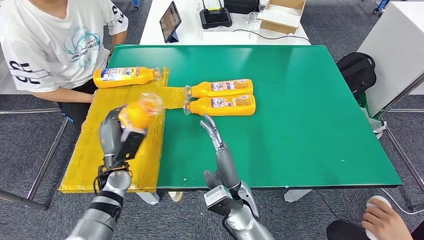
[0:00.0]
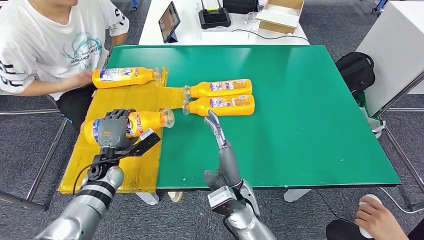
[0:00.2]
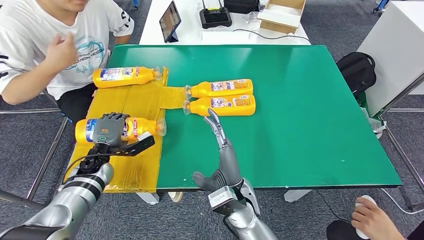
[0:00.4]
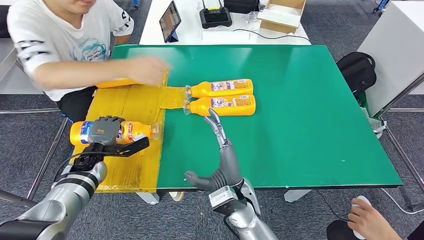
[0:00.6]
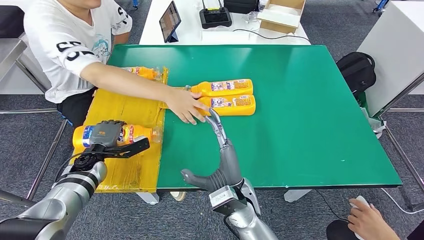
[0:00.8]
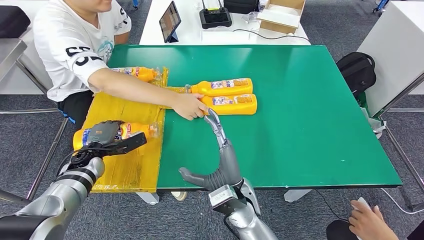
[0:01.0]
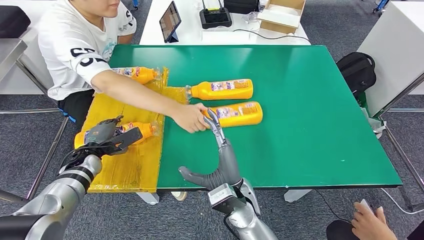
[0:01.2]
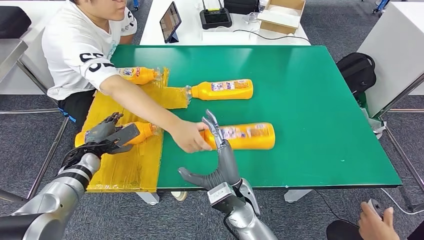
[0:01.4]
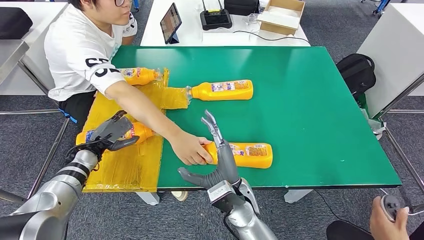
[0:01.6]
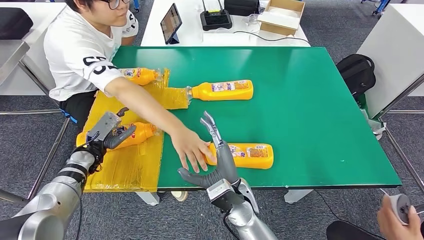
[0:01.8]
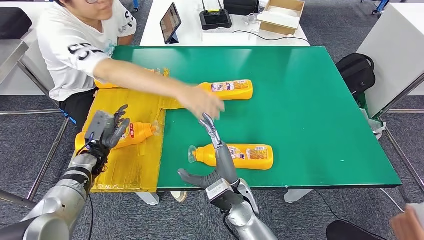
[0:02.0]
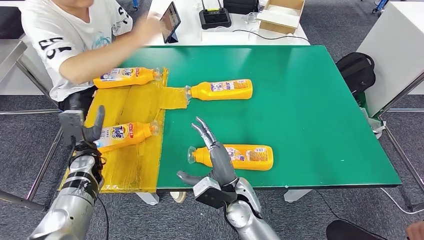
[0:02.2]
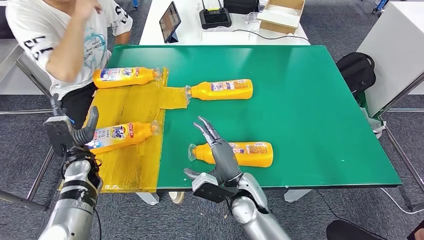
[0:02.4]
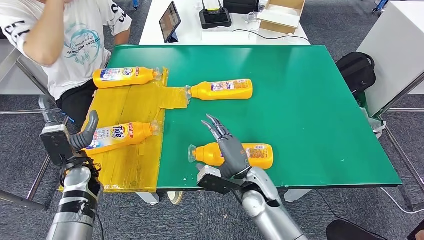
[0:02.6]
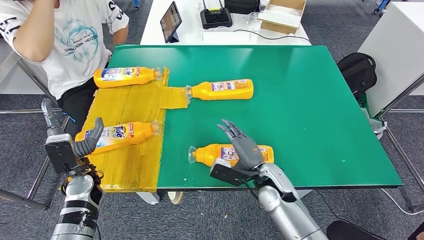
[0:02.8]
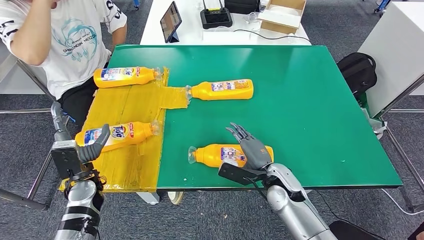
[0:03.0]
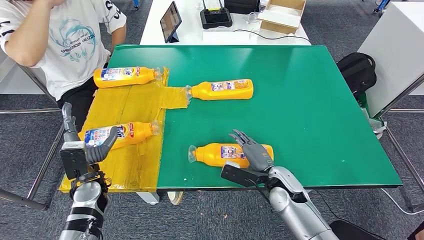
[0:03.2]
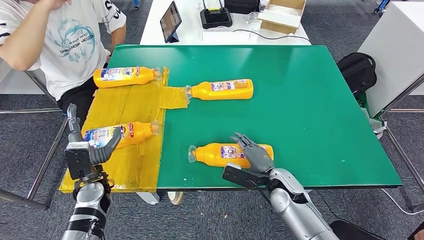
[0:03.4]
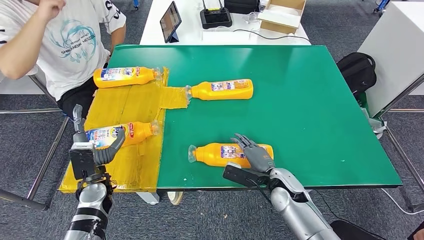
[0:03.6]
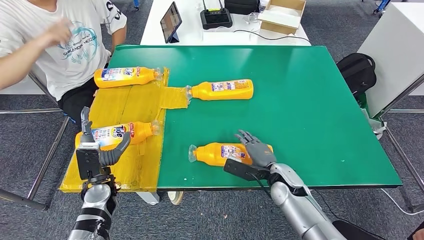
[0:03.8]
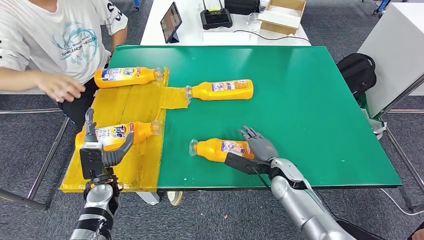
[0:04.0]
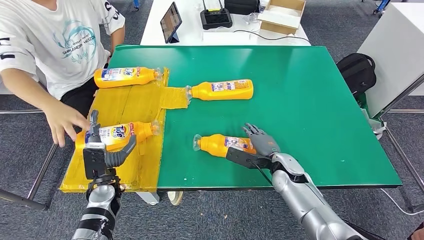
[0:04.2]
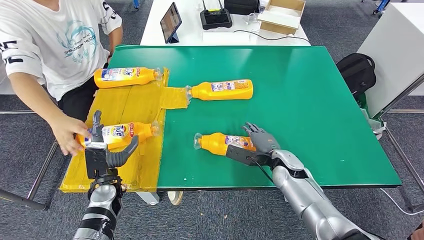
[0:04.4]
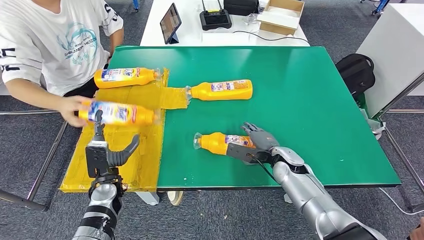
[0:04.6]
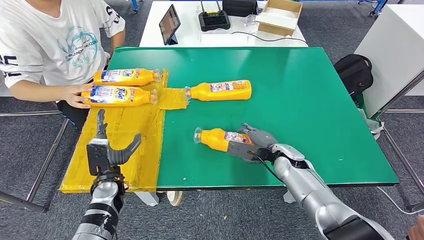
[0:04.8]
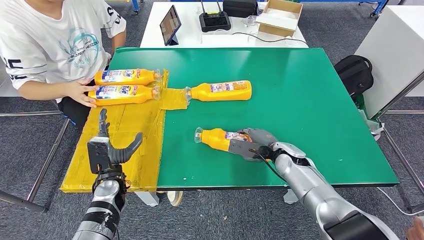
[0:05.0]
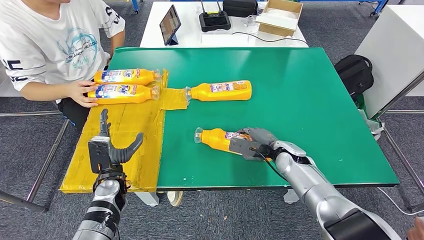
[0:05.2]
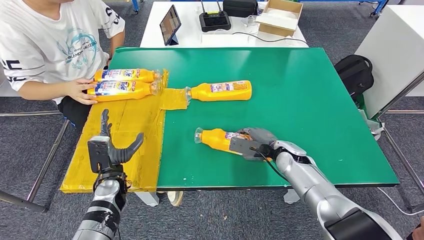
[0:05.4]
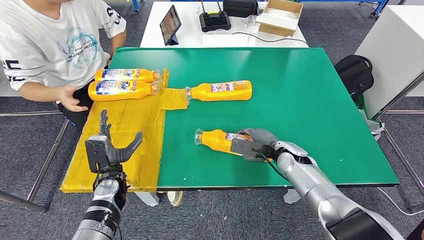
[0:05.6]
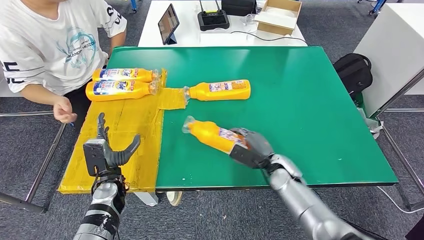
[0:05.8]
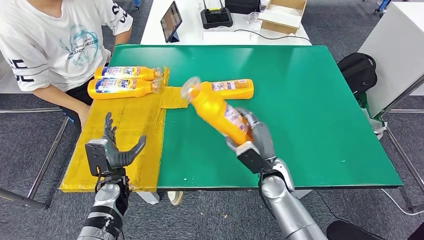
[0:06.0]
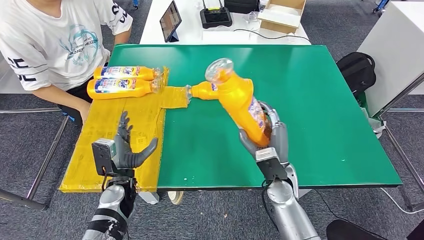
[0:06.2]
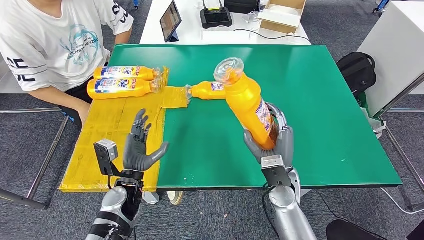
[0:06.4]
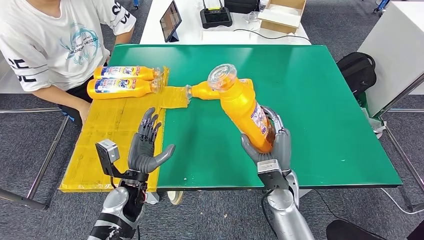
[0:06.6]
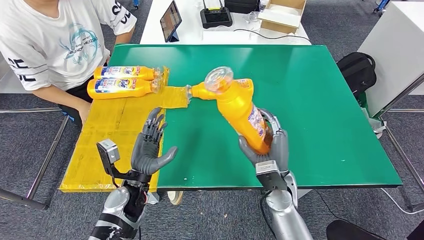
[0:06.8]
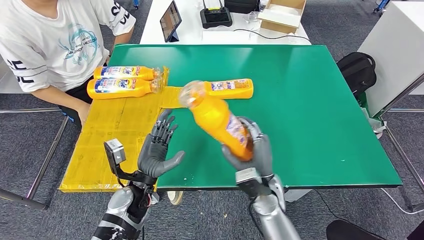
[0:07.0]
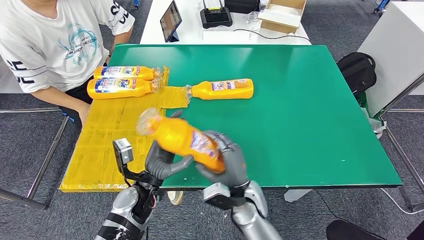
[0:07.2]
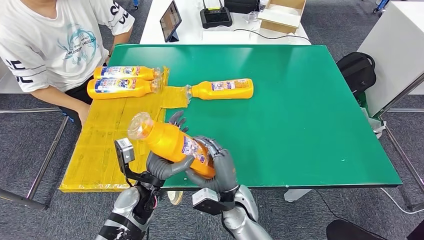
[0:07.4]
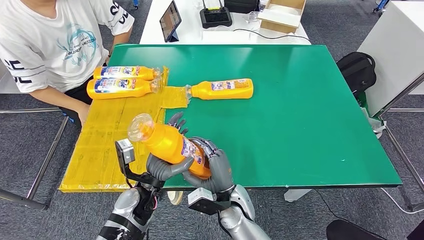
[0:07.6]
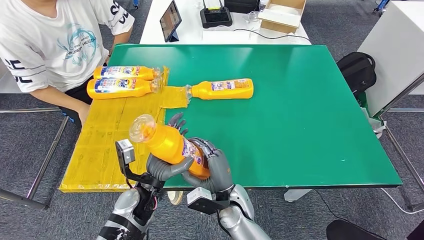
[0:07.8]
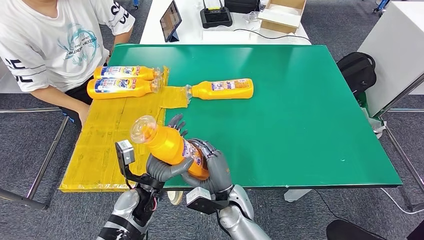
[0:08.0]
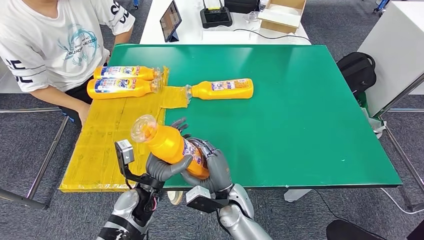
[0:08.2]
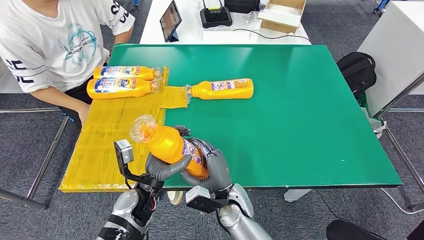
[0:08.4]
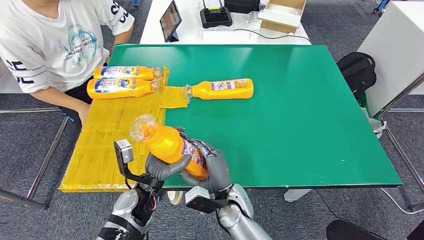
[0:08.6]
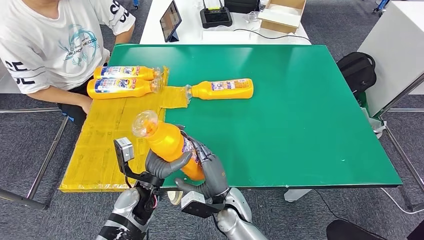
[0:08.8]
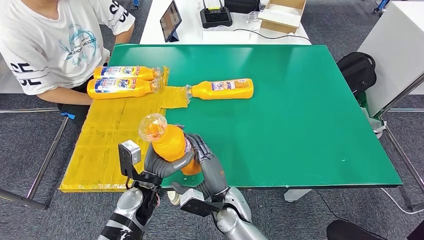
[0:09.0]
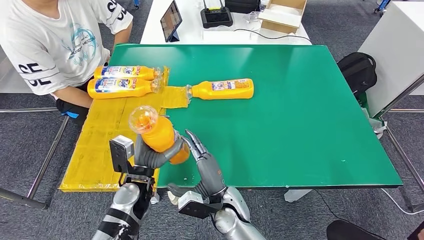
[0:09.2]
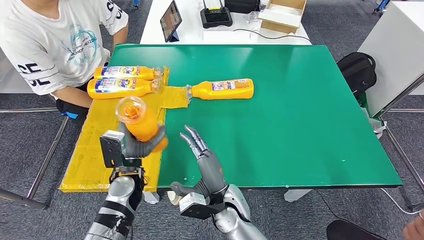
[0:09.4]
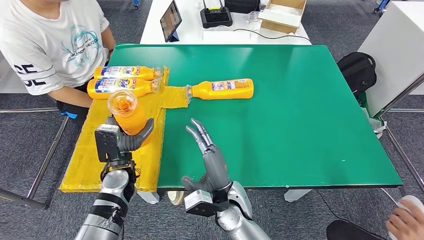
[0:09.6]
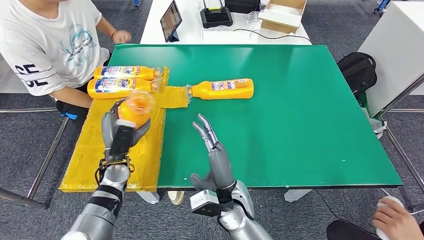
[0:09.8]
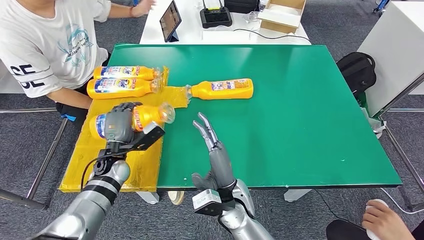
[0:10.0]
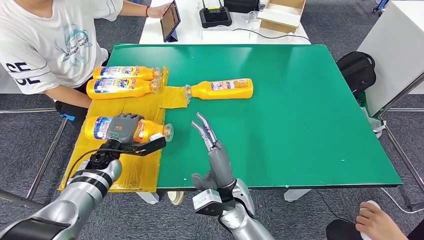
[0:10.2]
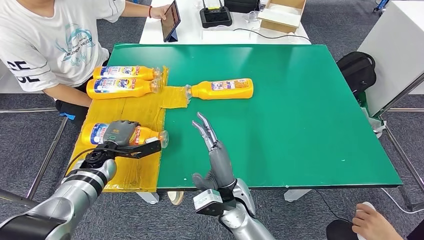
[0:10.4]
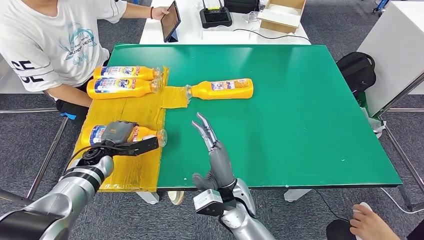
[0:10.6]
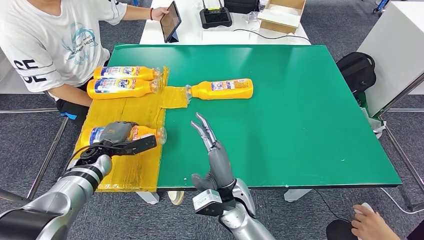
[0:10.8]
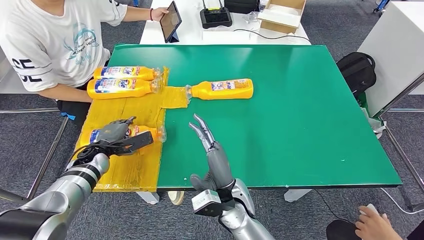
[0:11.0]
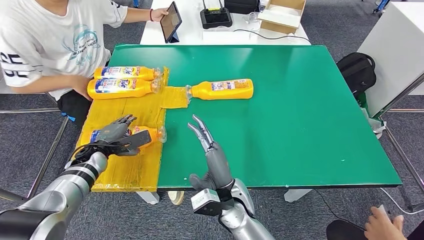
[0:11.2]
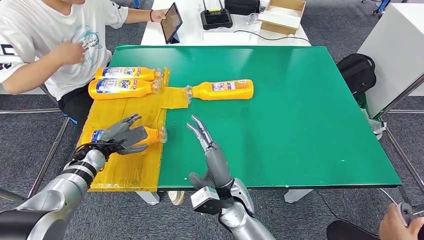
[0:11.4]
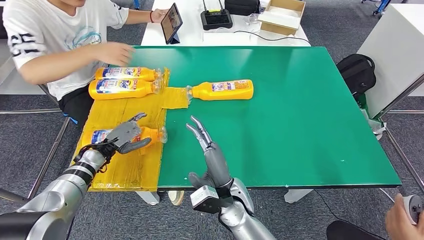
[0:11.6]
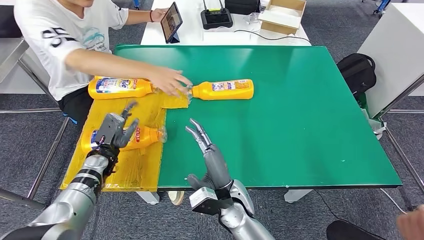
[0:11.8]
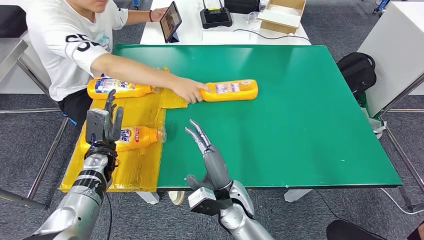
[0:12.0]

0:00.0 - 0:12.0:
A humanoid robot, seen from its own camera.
Step, 0:00.0 - 0:02.6: Flip the fast-moving consumer goods bottle to the front side.
Step, 0:02.8 - 0:07.0: Pick up the fast-moving consumer goods bottle from the table.
0:07.6 - 0:09.0: The hands make only small movements.

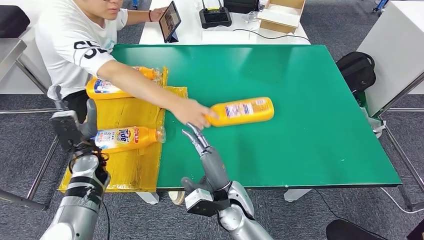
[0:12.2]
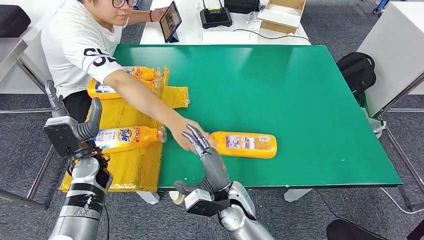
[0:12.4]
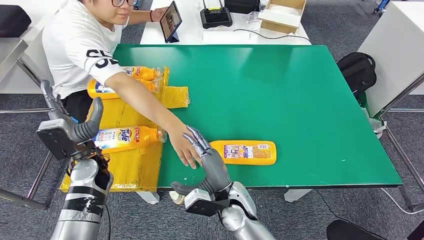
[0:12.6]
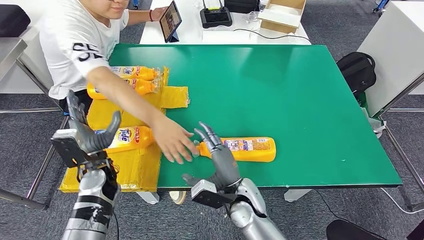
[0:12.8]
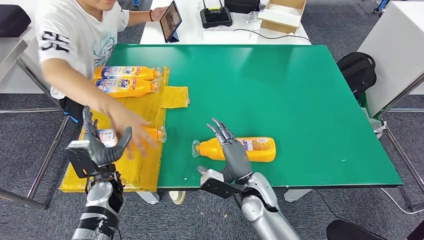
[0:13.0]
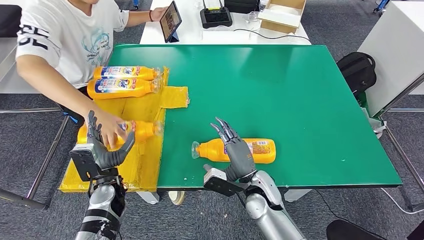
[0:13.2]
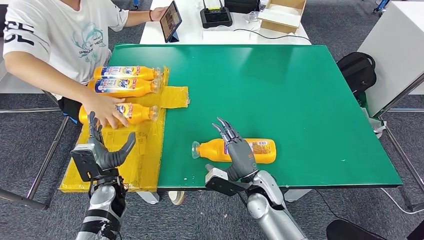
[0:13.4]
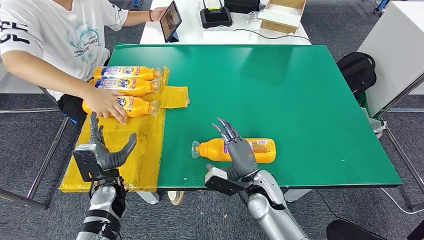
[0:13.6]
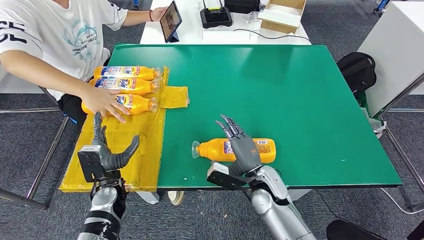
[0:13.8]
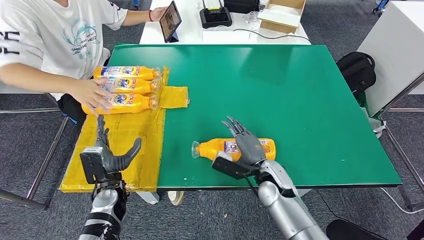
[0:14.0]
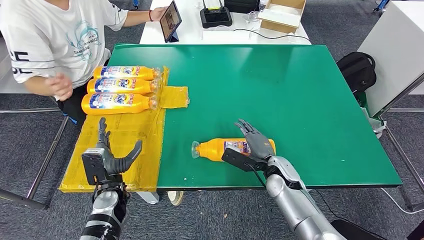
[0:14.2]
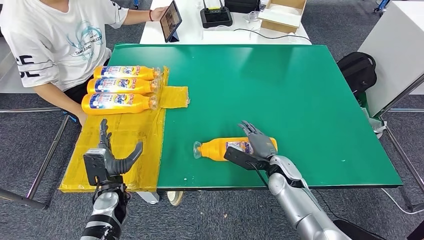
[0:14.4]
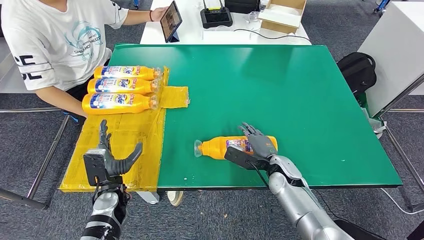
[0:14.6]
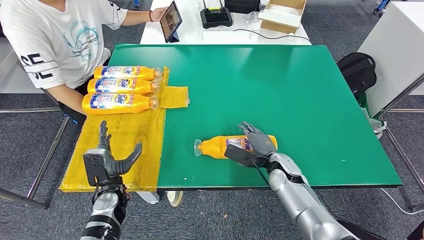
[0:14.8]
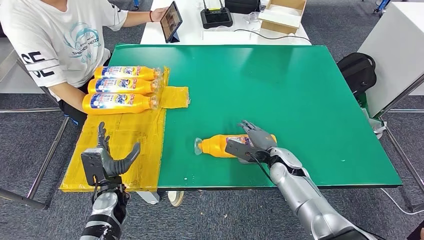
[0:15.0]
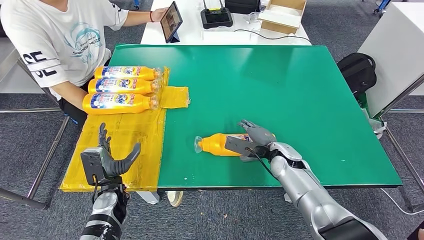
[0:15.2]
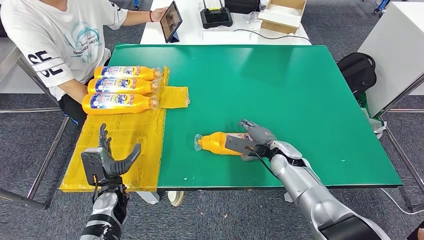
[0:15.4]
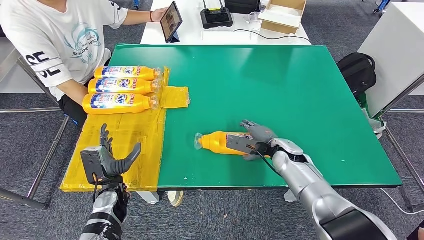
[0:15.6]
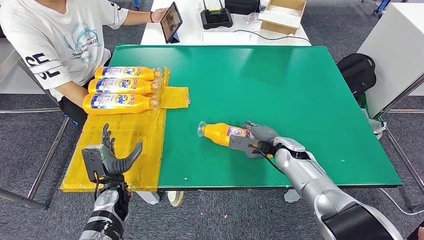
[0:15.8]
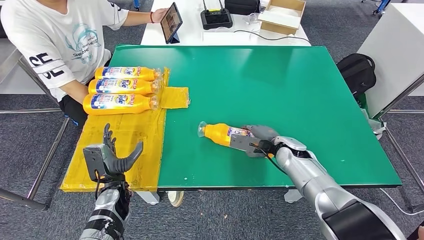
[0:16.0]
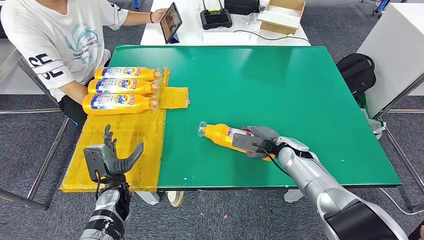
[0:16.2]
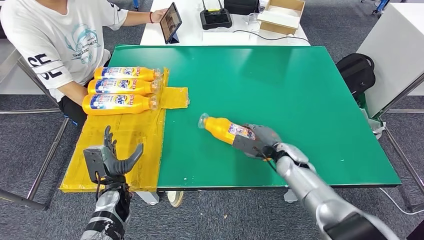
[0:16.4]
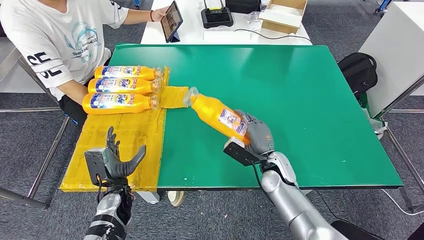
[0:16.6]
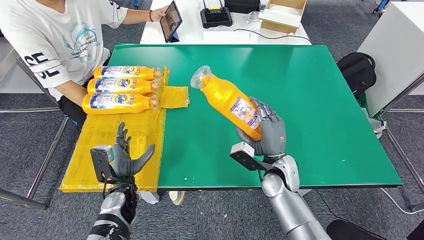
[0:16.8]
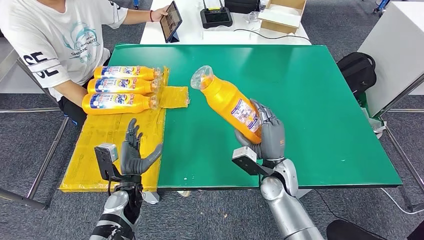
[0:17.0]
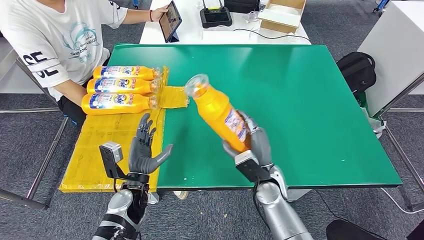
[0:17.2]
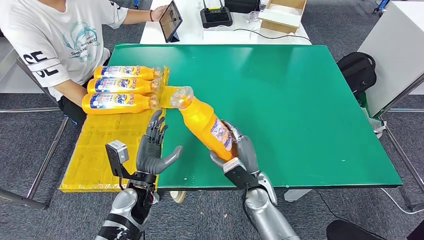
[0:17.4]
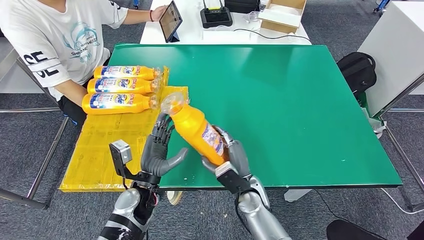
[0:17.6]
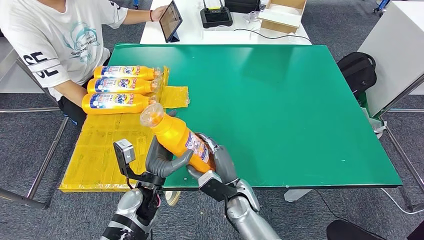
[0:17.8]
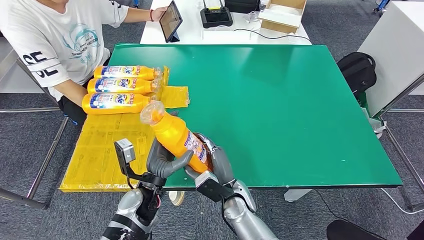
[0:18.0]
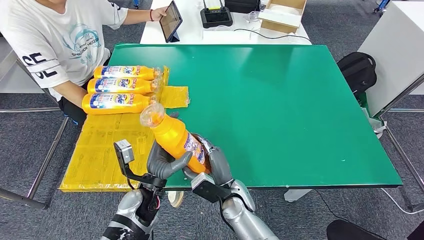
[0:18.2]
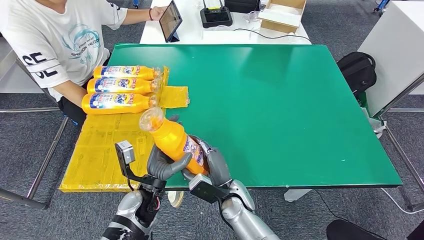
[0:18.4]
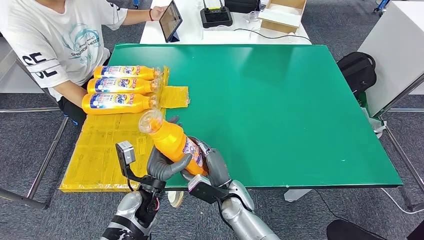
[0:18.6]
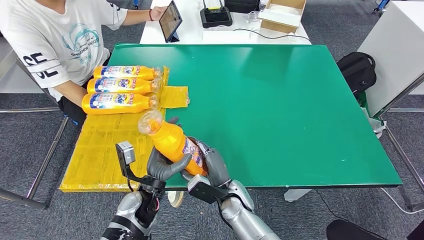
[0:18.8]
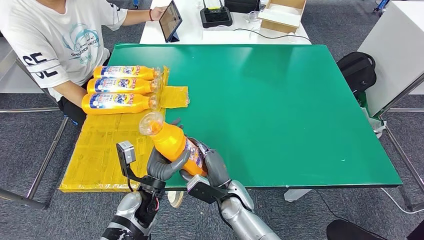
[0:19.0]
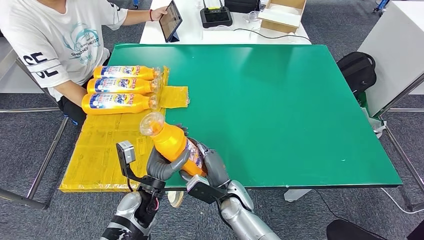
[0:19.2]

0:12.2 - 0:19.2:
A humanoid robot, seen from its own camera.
Step, 0:13.4 - 0:16.8: Pick up the fast-moving consumer goods bottle from the table.
0:13.6 - 0:15.0: The right hand travels to the right and forward by approximately 10 cm.
0:15.0 - 0:16.4: The hands move only a little.
0:17.8 - 0:19.2: The hands move only a little.
